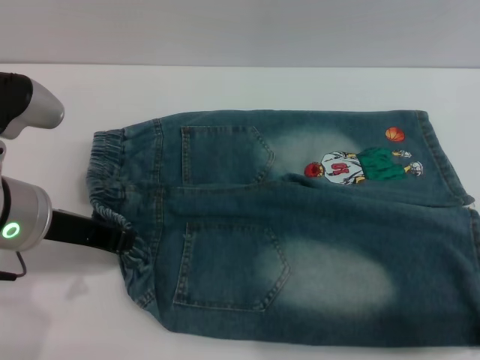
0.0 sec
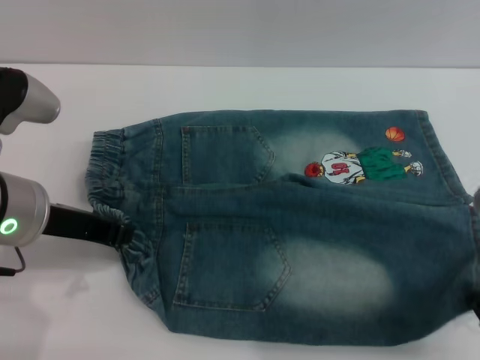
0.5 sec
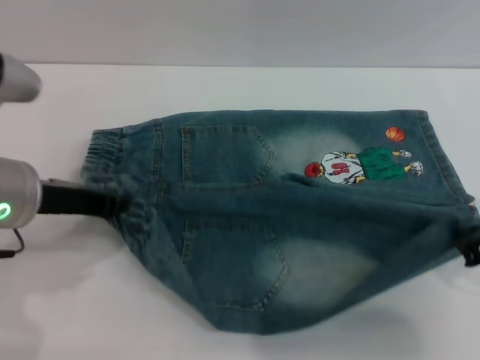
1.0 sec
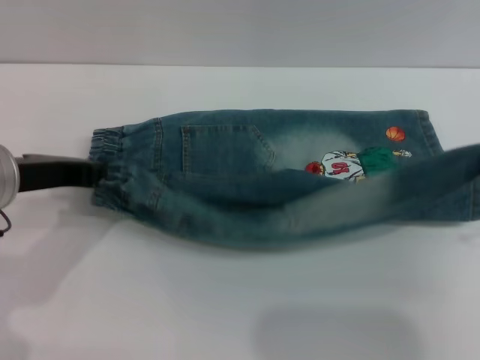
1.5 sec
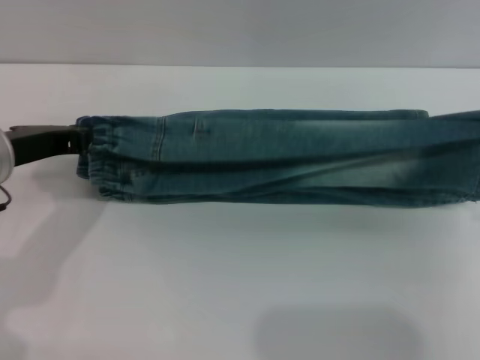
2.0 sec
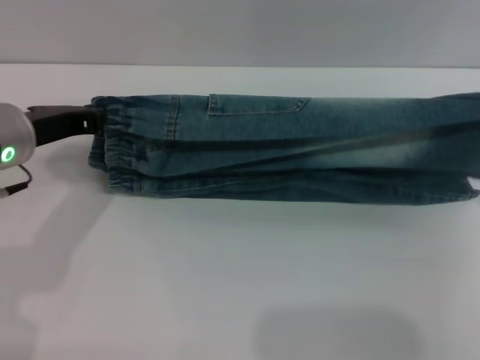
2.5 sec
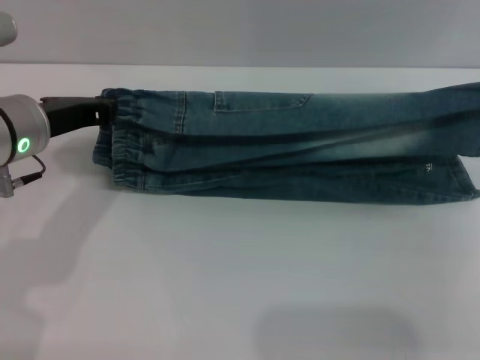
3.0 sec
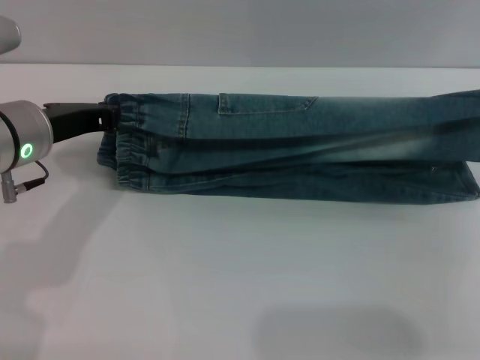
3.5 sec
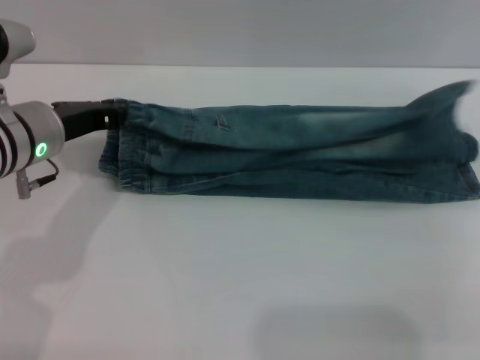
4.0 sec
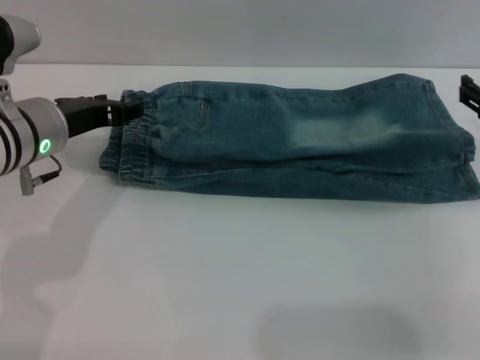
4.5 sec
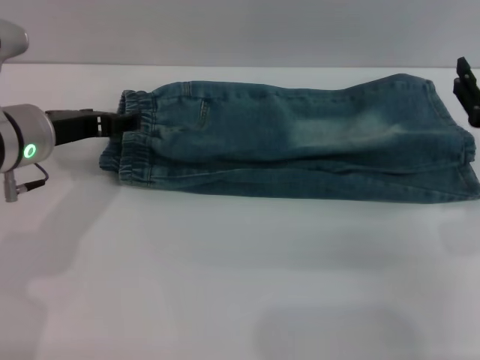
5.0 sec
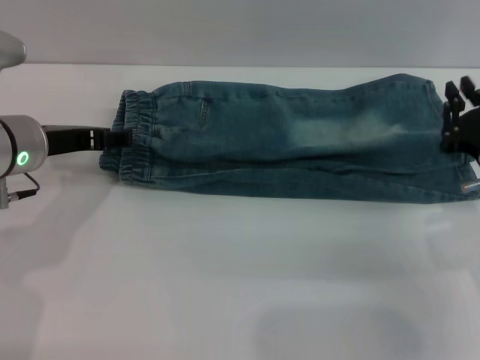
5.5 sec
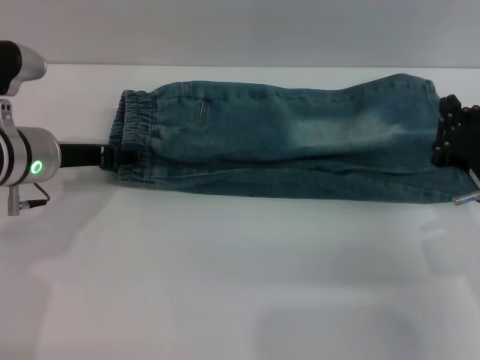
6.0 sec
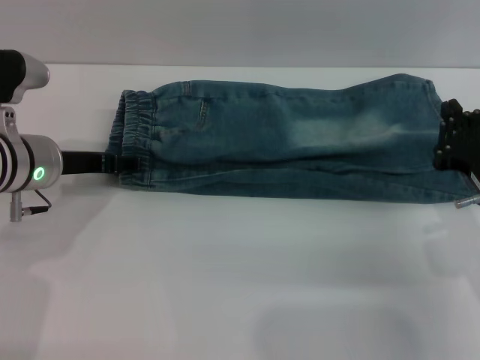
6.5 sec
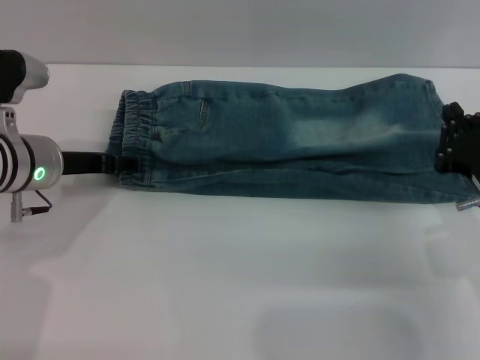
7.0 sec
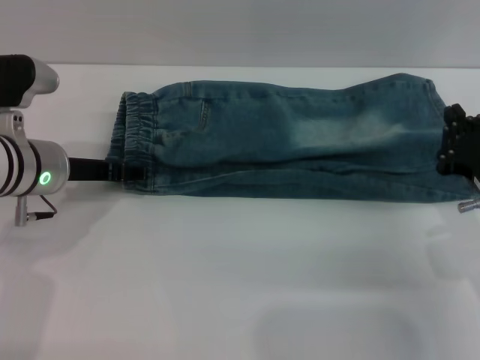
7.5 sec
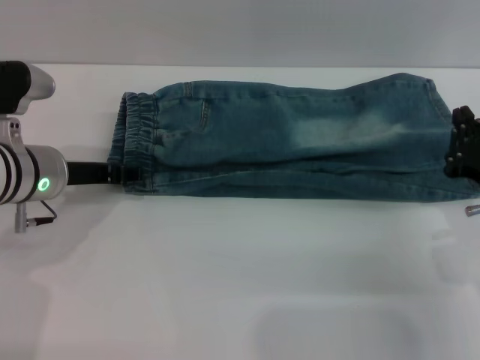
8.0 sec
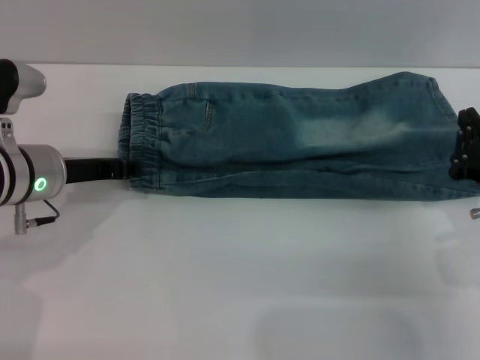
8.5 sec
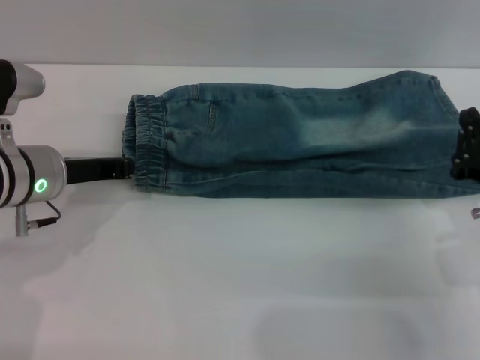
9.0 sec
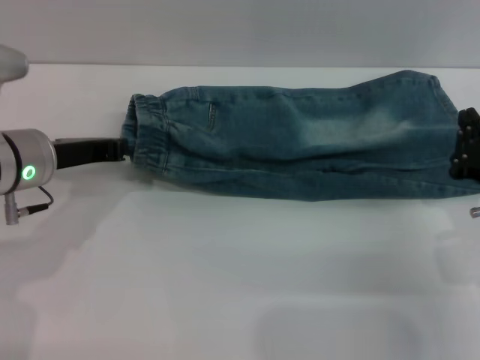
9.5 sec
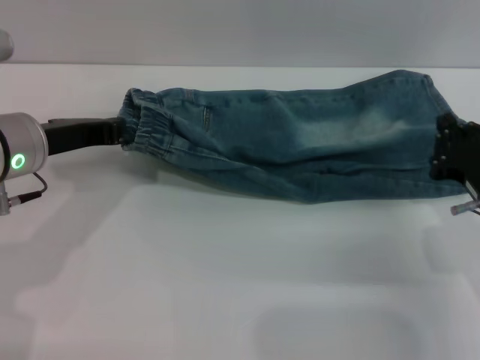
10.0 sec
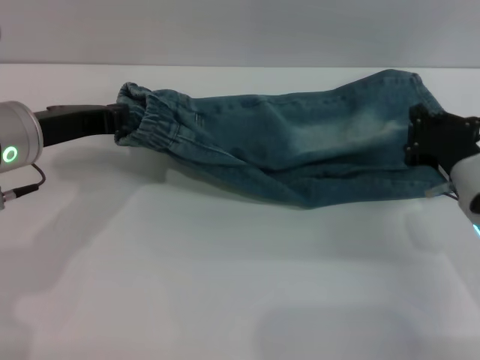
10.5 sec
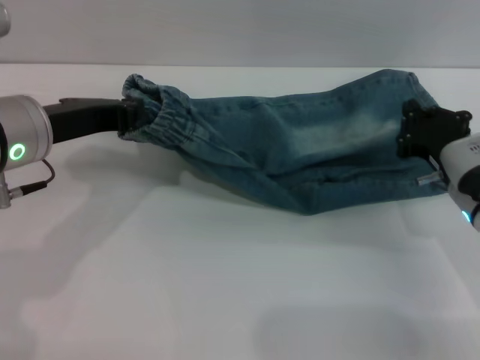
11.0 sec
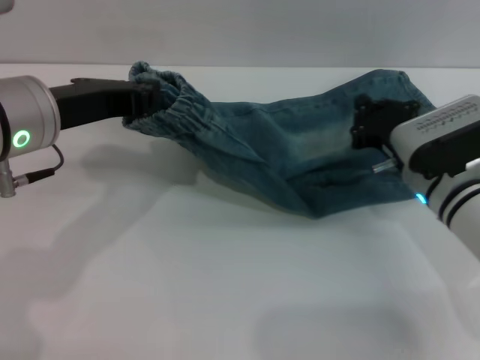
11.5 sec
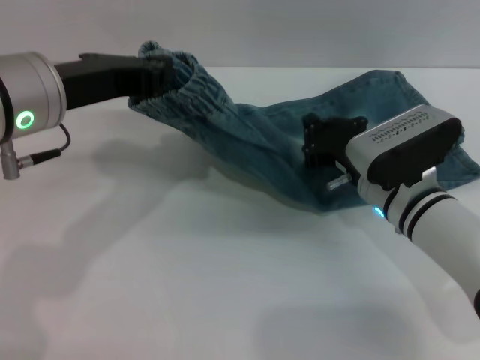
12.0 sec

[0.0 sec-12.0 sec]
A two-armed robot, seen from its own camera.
Step, 0.0 sec to 4.5 sec: Fold the bottom of the pants upward with both grippers.
0.0 sec to 2.0 sec: The right gripper goes roughly 10 cm forward and upward, and closes up.
2.0 sec to 4.0 sec: The right gripper moves roughly 5 cm. Meanwhile the left gripper moves roughly 5 cm.
4.0 sec to 6.0 sec: The right gripper is displaced downward, to the left and backward by about 10 cm, and opens, then closes once more. Meanwhile the left gripper opens its fingers.
6.0 sec to 8.0 sec: The grippers stay close to where they were, moving slightly.
8.0 sec to 10.0 sec: The left gripper heads upward, covering approximately 5 cm, and closes its fingers.
10.0 sec to 12.0 sec: The right gripper is displaced to the left and forward by some 10 cm. The left gripper shifts about 5 cm upward.

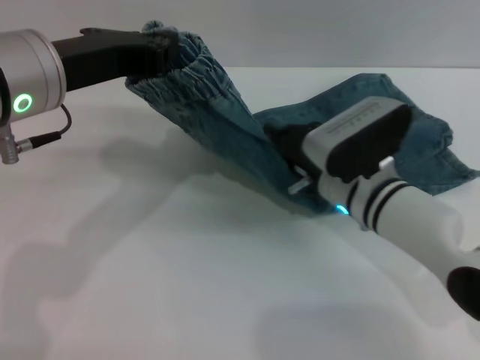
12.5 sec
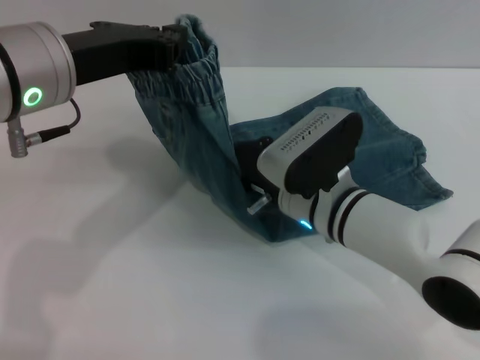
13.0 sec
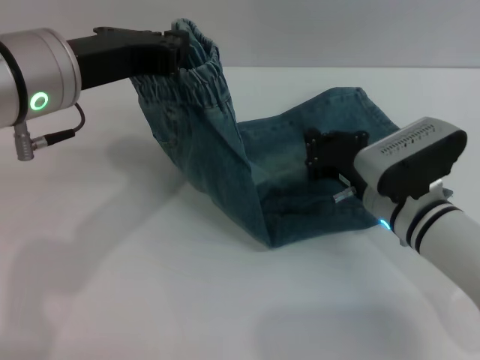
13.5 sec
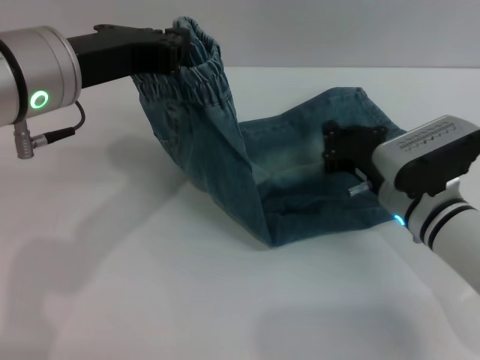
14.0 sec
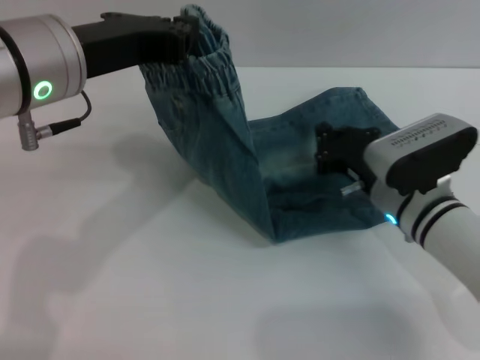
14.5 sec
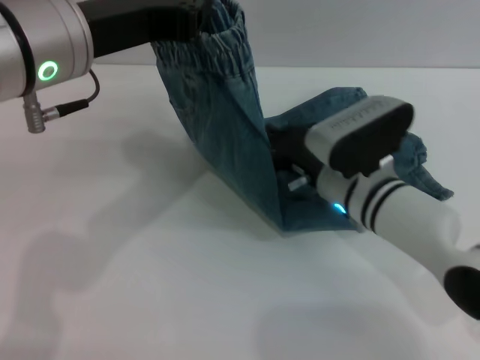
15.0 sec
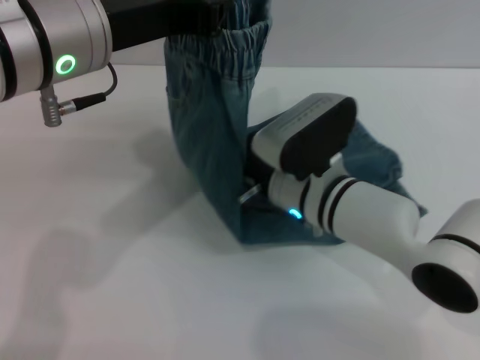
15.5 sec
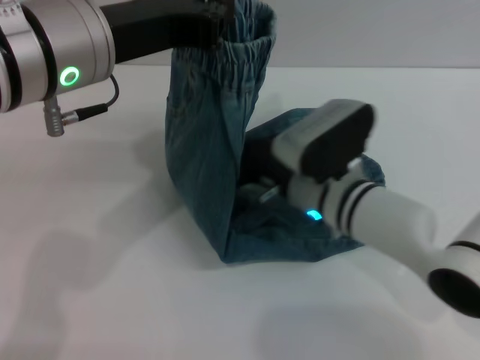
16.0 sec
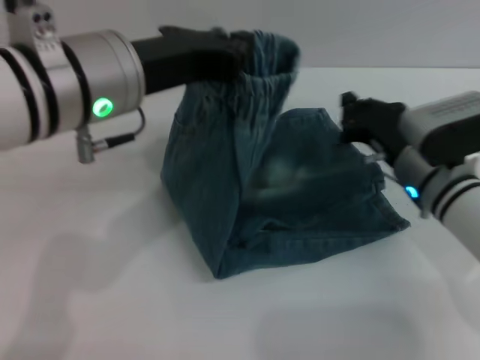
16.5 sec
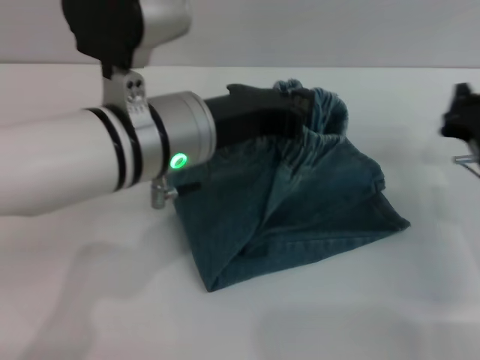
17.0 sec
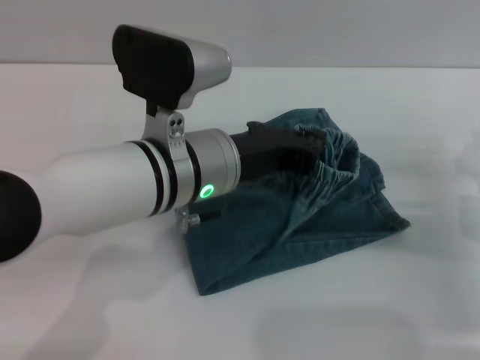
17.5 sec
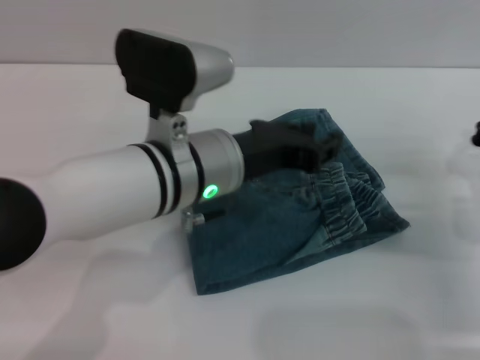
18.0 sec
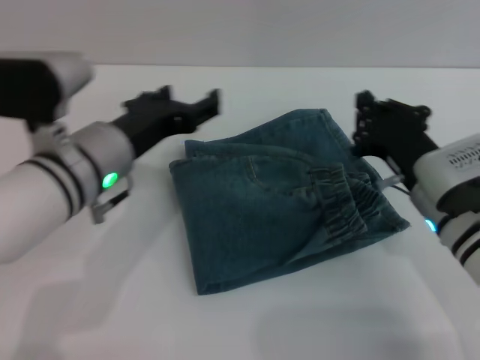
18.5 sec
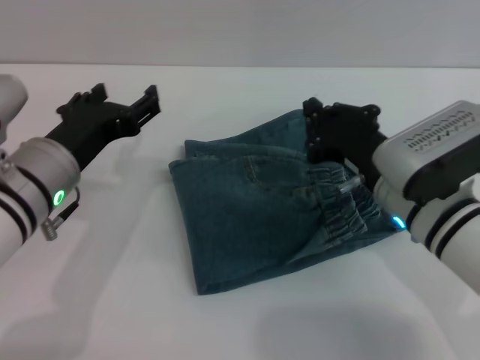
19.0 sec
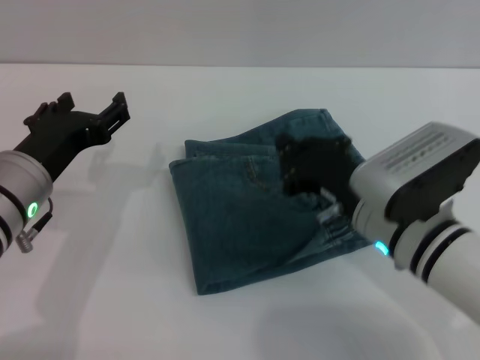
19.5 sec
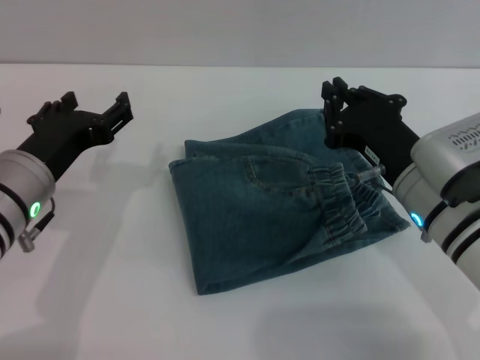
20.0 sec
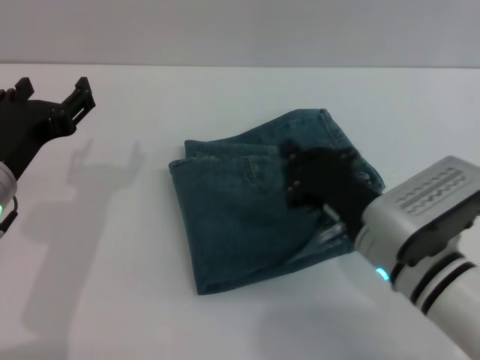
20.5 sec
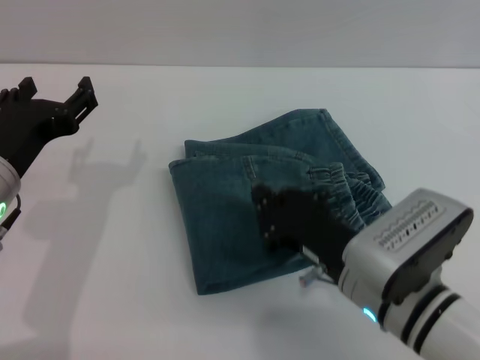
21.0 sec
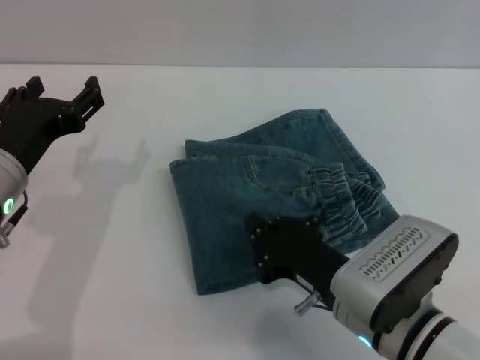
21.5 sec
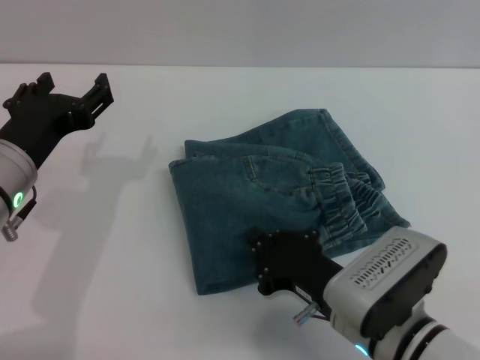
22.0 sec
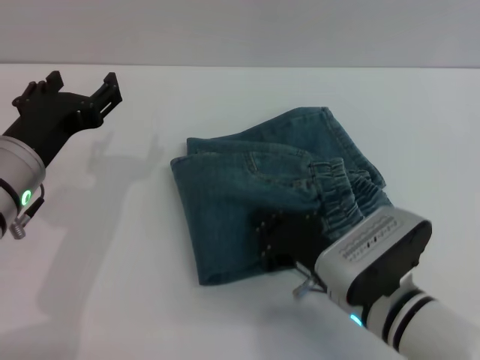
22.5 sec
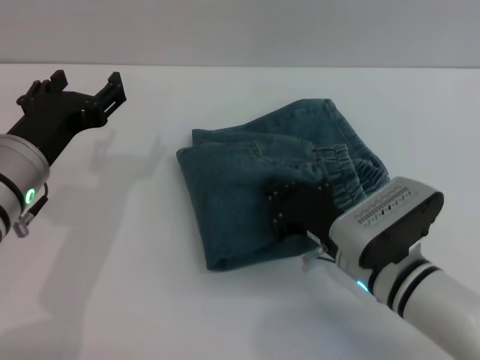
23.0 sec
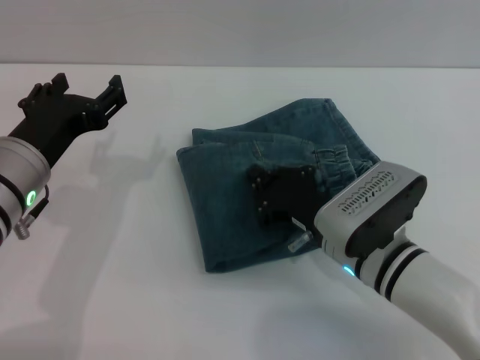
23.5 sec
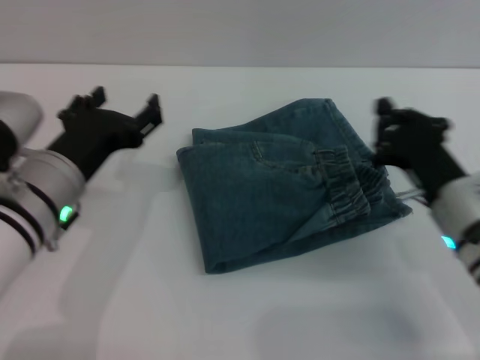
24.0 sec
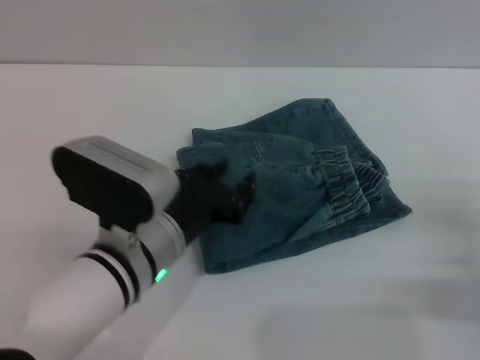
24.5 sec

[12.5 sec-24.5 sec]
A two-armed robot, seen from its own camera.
Step, 12.5 sec to 20.5 sec: Fold the pants from left to right with the left gripper.
12.5 sec to 14.5 sec: The right gripper is displaced to the right by roughly 5 cm.
14.5 sec to 16.5 sec: The right gripper goes to the left and returns, approximately 10 cm each way.
16.5 sec to 18.5 sec: The right gripper moves backward, about 5 cm, and reaches roughly 10 cm to the right, then returns, while the left gripper shifts about 10 cm downward, and opens up.
18.5 sec to 20.5 sec: The right gripper goes roughly 5 cm to the left; the left gripper heads to the left and backward, covering roughly 10 cm.
20.5 sec to 22.5 sec: The right gripper ends up roughly 5 cm from where it was.
22.5 sec to 24.5 sec: The right gripper travels to the right by about 20 cm. Meanwhile the left gripper is displaced to the right by some 10 cm.

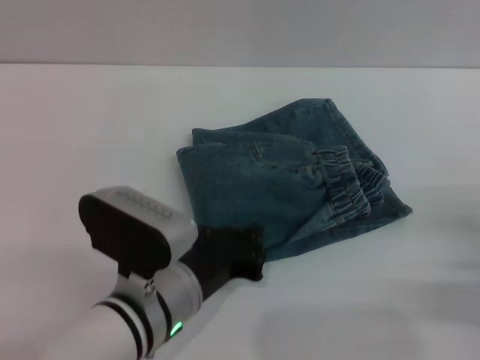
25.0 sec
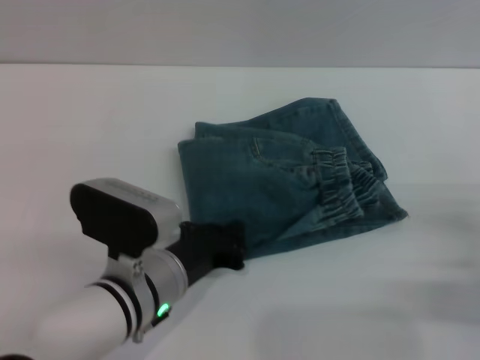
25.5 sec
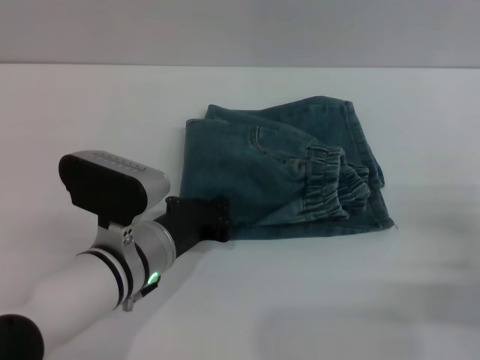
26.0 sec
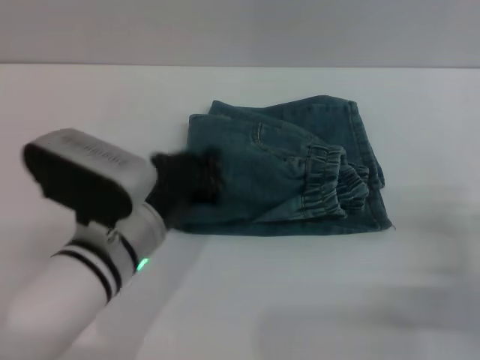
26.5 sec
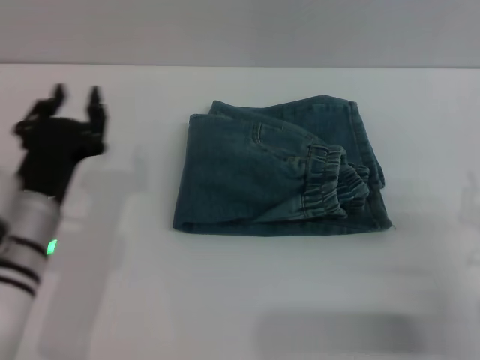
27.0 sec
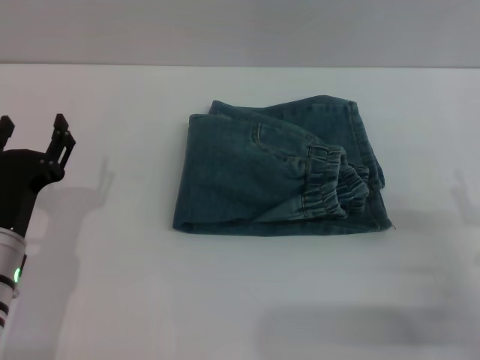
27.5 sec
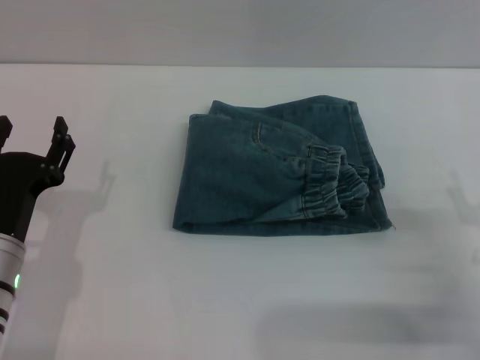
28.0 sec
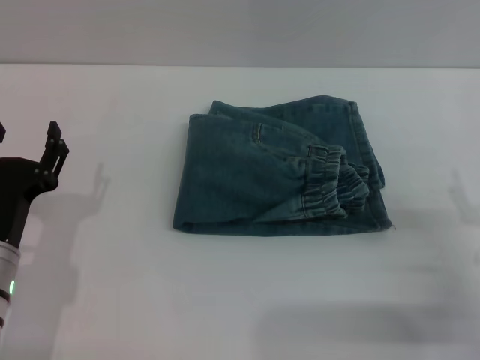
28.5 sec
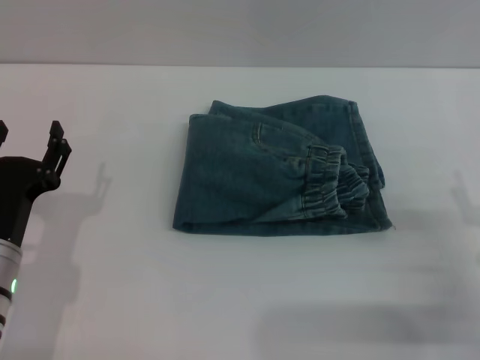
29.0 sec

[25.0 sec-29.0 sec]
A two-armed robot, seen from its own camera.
25.0 sec to 27.0 sec: The left gripper moves to the left, some 10 cm. The right gripper moves some 5 cm.
27.0 sec to 29.0 sec: The left gripper changes place by roughly 5 cm, and opens its fingers.
